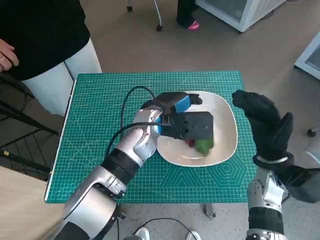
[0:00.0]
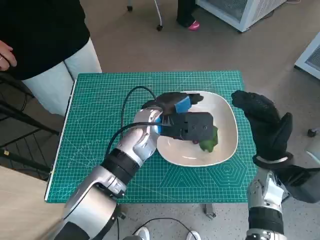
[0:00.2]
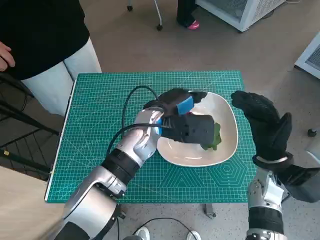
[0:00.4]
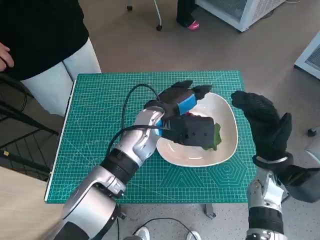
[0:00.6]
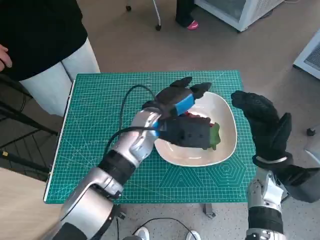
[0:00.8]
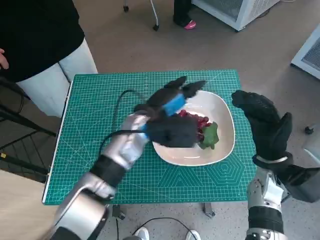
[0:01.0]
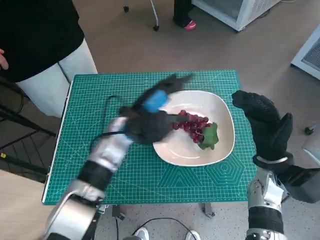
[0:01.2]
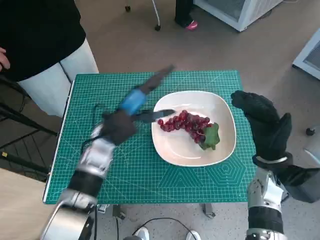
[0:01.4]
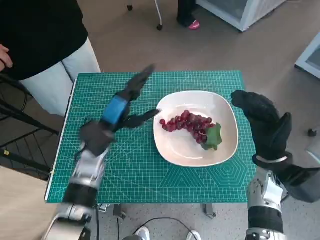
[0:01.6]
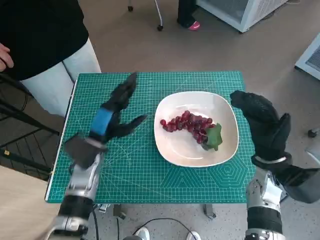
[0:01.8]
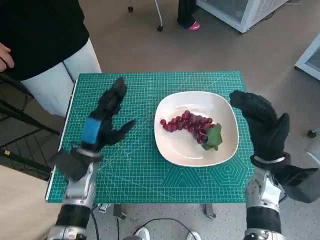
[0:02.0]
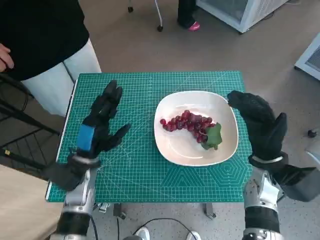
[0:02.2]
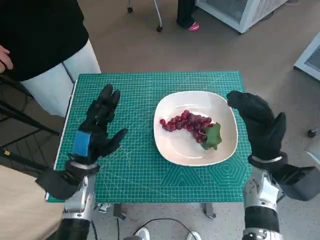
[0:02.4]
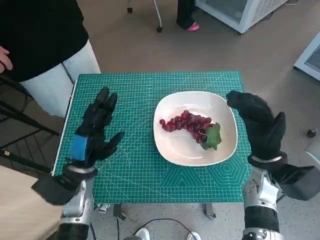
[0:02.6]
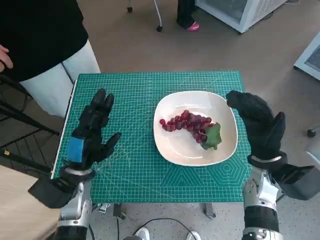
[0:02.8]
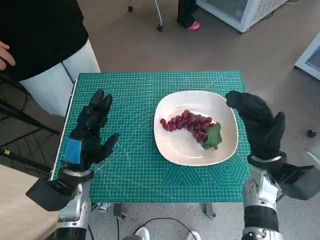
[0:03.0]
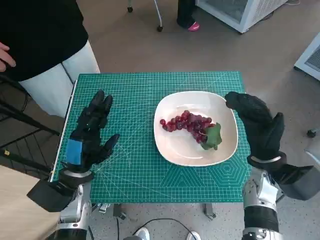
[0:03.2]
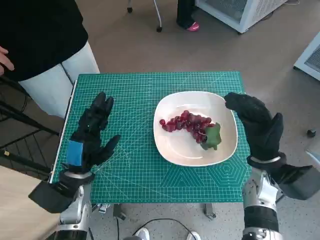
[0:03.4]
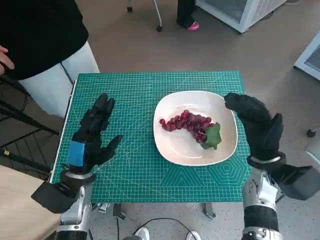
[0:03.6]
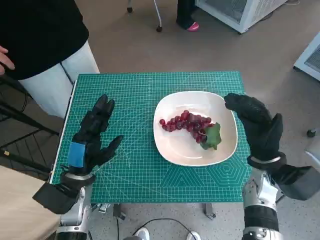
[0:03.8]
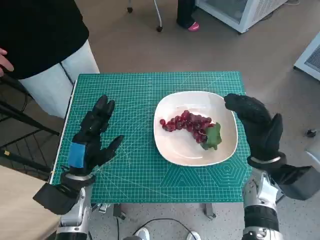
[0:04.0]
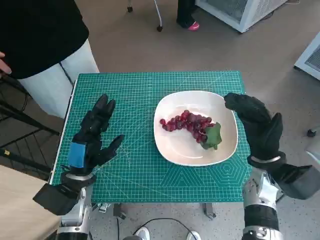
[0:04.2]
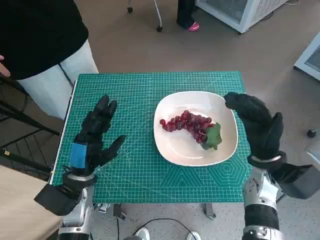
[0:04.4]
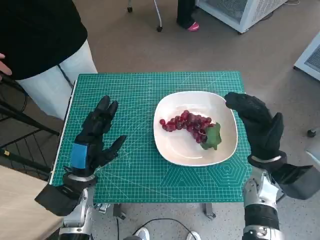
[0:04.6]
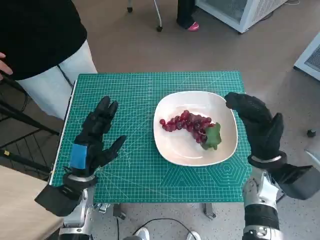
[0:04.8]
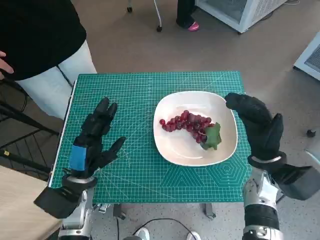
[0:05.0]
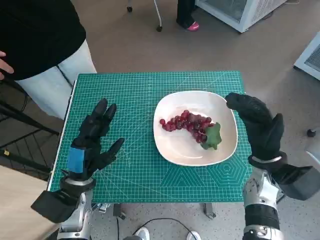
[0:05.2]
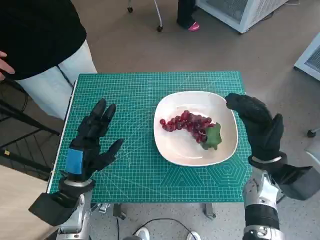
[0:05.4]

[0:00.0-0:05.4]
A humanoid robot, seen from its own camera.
Task of the whole recording: Pick up the grapes and put them on the plate.
0:00.0 to 0:01.4: The left hand travels to the left by roughly 10 cm.
0:01.4 to 0:02.8: The left hand goes approximately 15 cm backward, to the left and downward.
0:02.8 to 0:04.0: Both hands stay put.
0:04.0 to 0:05.4: Both hands stay about where they are.
